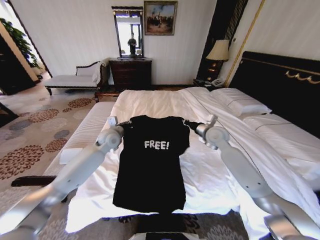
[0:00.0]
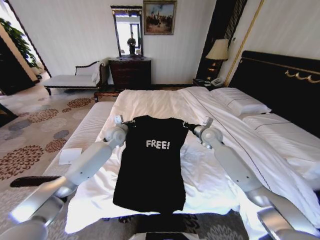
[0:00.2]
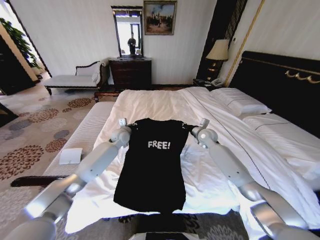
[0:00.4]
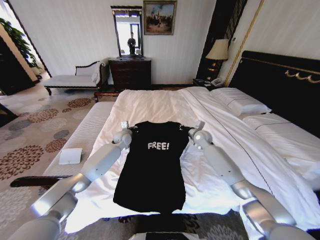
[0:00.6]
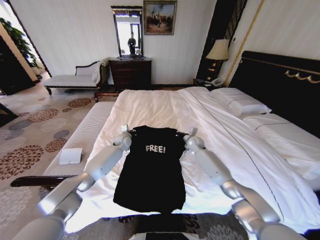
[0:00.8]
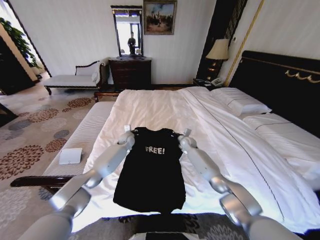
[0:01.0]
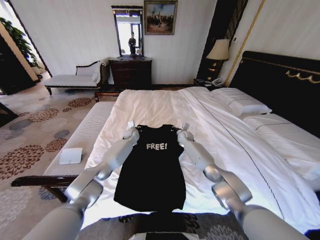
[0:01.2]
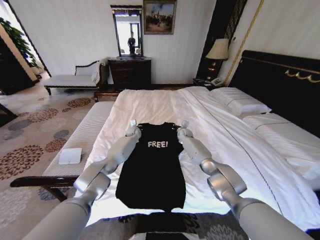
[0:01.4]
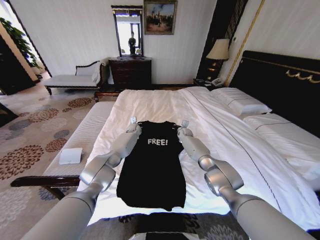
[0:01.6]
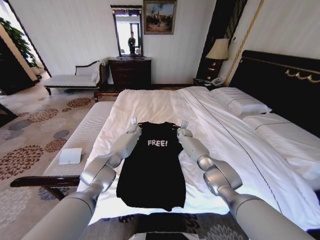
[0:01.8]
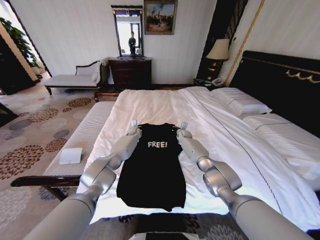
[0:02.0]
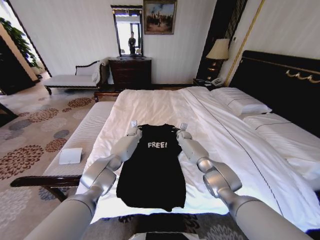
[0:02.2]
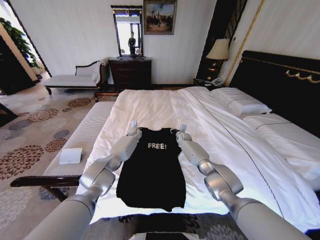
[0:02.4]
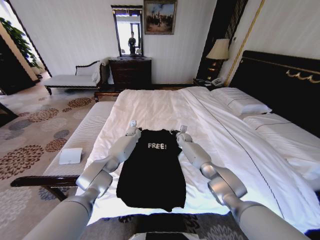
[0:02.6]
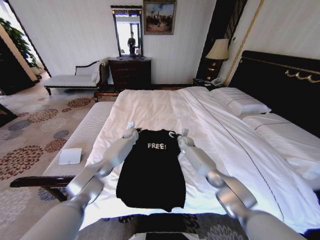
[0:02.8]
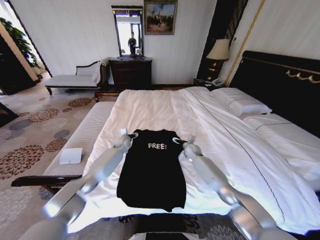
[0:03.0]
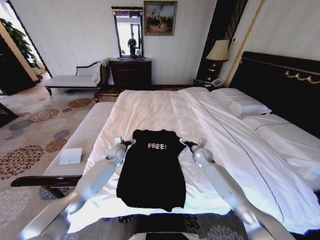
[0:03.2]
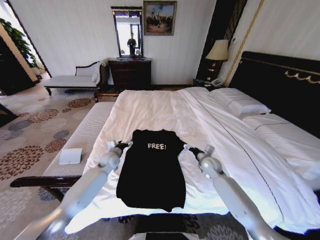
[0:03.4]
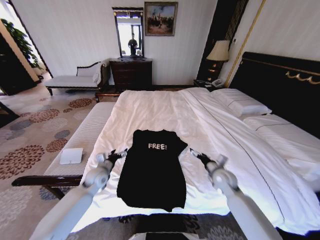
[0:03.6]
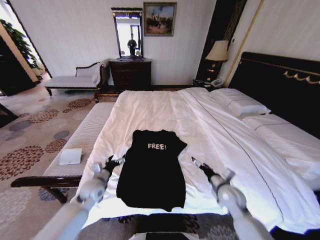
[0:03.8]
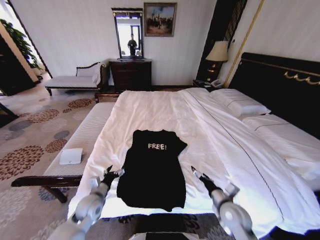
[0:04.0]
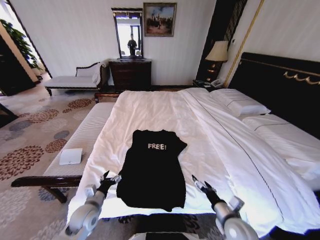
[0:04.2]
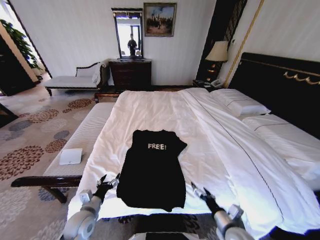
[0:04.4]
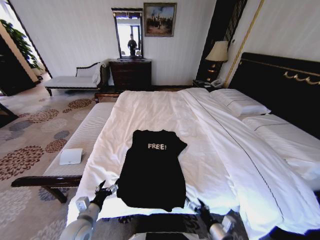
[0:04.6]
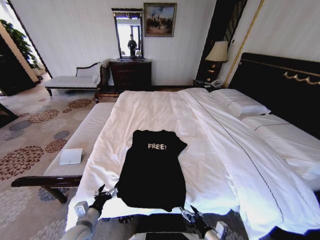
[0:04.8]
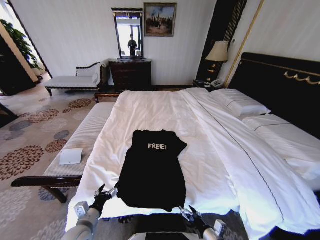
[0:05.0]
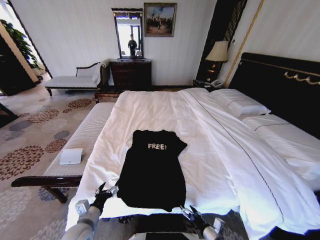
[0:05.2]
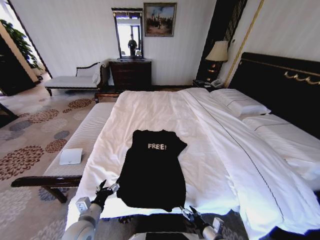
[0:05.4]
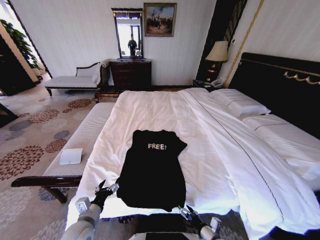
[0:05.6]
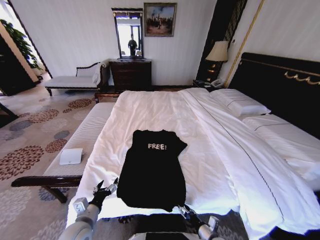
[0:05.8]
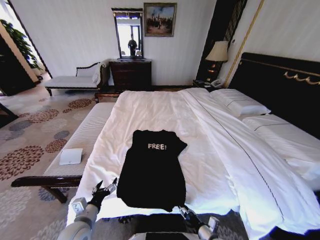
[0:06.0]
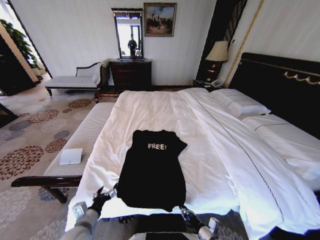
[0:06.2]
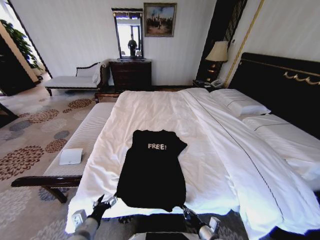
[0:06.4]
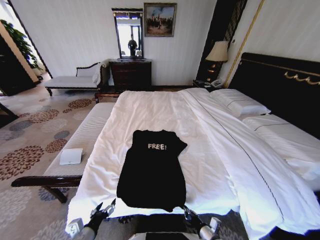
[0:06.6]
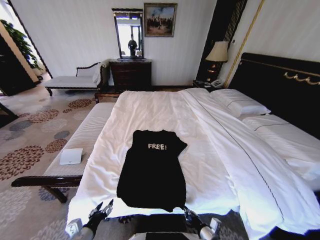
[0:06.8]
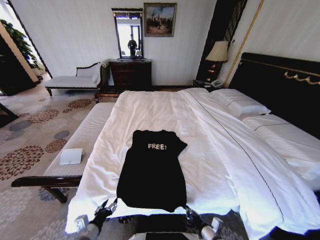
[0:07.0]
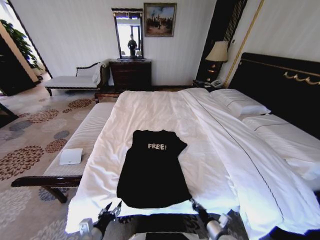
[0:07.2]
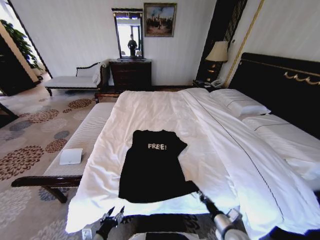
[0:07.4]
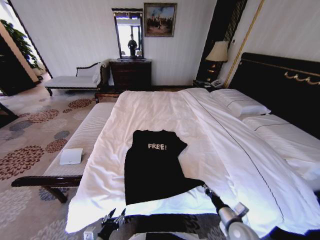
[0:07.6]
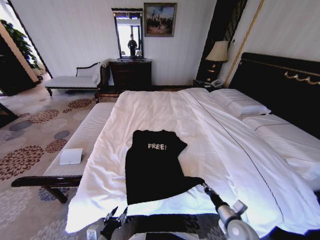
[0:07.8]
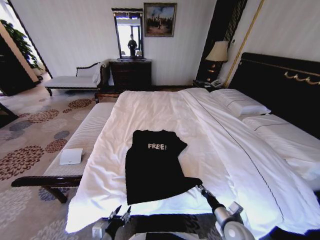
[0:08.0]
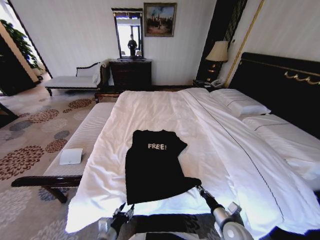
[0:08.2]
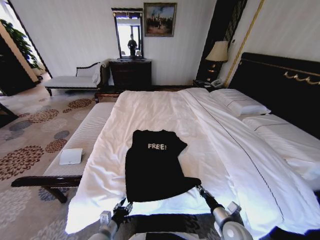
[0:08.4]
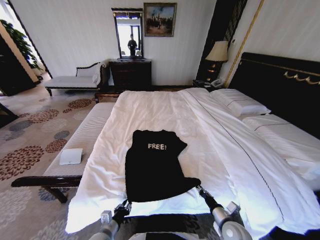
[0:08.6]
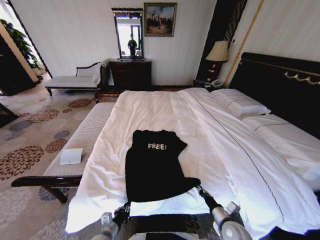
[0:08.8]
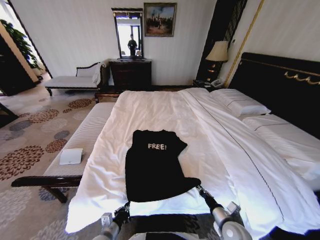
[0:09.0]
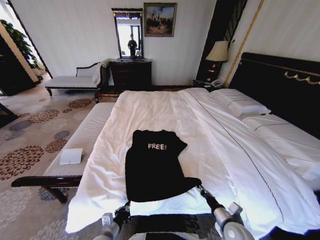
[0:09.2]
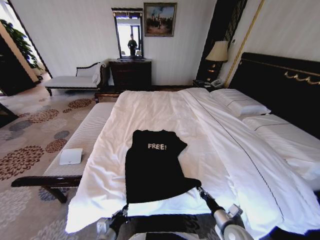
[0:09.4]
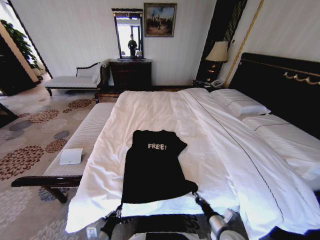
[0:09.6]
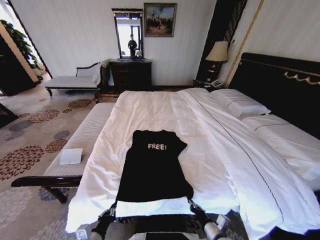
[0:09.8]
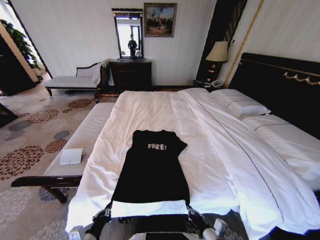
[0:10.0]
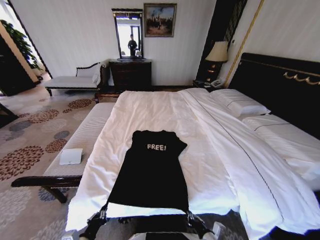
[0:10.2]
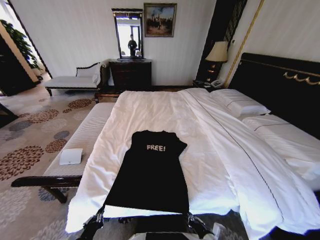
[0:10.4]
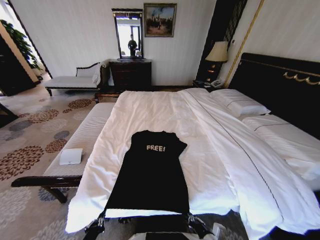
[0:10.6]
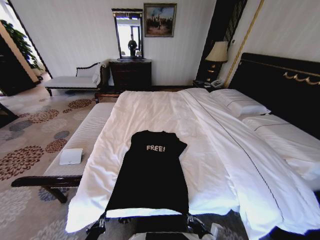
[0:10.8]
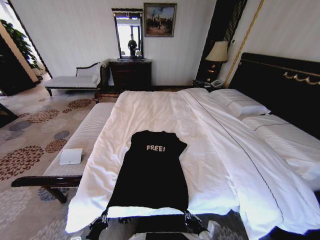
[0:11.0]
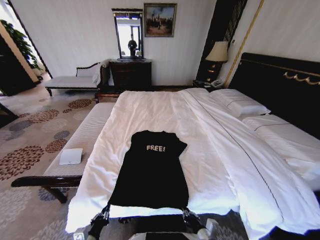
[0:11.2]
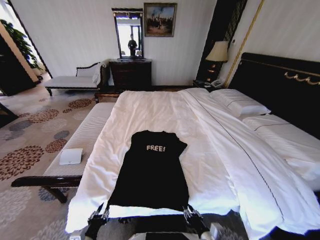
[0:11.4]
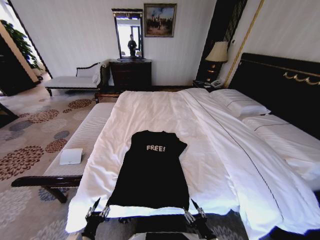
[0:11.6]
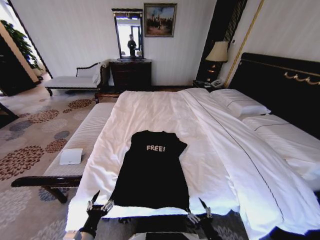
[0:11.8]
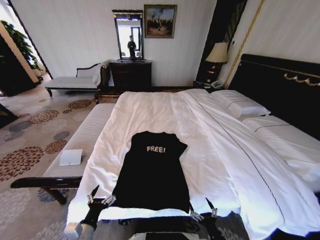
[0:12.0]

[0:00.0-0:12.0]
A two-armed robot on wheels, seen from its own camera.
Task of the whole recording: Fold the clothes on the bed.
0.0 to 1.6 s: The left gripper heads forward, downward and to the right, covering some 25 cm. The right gripper is displaced forward and downward by roughly 25 cm.
1.6 to 3.0 s: The left gripper heads backward and to the left, covering roughly 10 cm, and opens up; the right gripper goes some 10 cm backward, and opens its fingers.
3.0 to 4.4 s: The grippers both shift backward by approximately 40 cm.
4.4 to 6.0 s: The right gripper goes roughly 10 cm downward, and closes up.
6.0 to 7.6 s: The left gripper travels backward and downward by some 10 cm. The right gripper moves upward and to the right, some 10 cm, and closes its fingers.
7.6 to 9.0 s: The left gripper goes about 5 cm forward, and closes up.
9.0 to 10.4 s: The left gripper is displaced upward, backward and to the left by about 15 cm, while the right gripper heads backward and to the left, covering some 10 cm.
10.4 to 12.0 s: The right gripper shifts by roughly 5 cm, and opens its fingers, while the left gripper opens up.

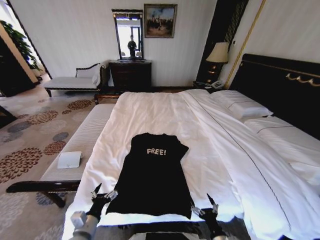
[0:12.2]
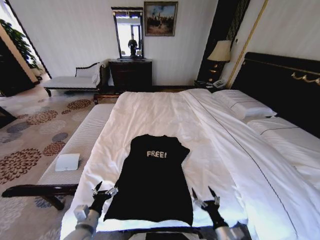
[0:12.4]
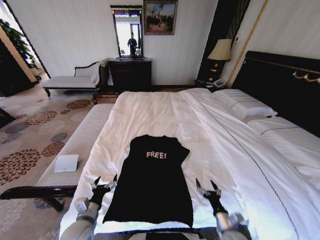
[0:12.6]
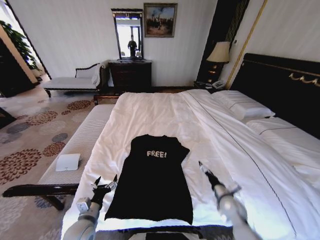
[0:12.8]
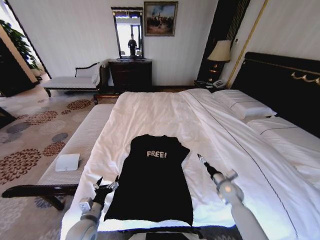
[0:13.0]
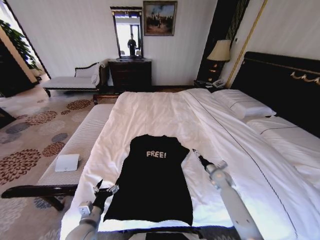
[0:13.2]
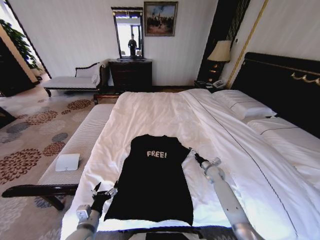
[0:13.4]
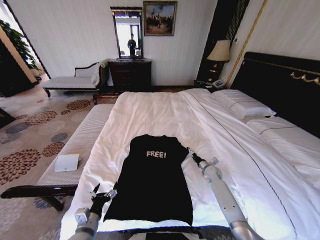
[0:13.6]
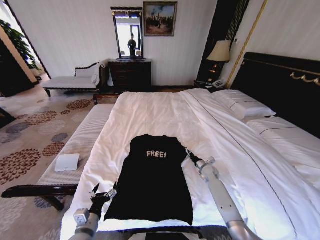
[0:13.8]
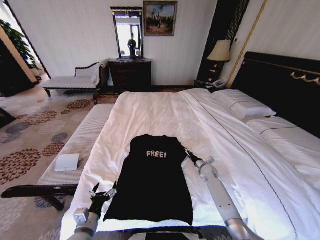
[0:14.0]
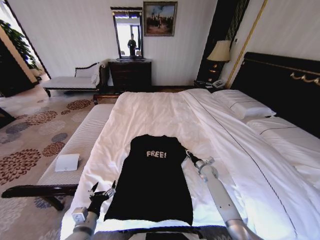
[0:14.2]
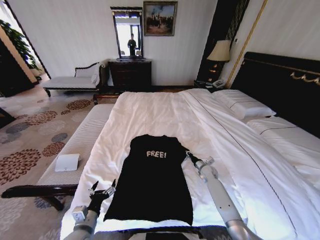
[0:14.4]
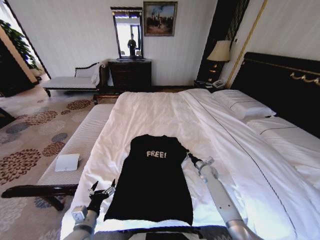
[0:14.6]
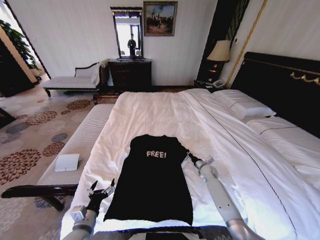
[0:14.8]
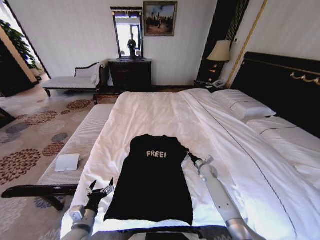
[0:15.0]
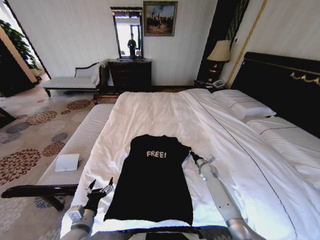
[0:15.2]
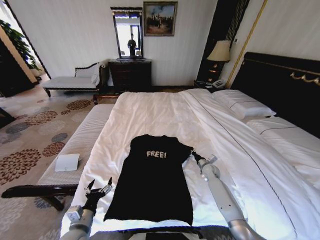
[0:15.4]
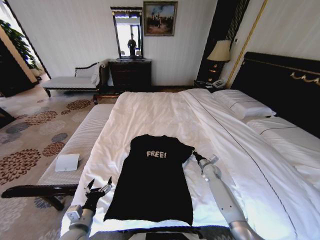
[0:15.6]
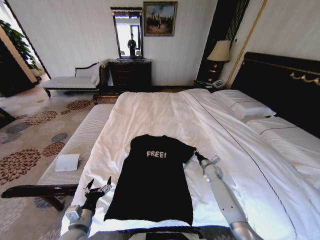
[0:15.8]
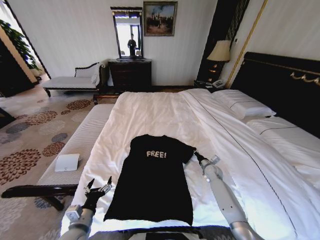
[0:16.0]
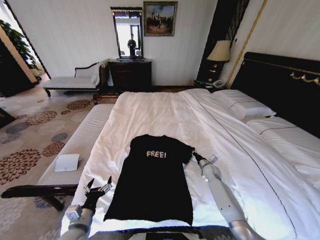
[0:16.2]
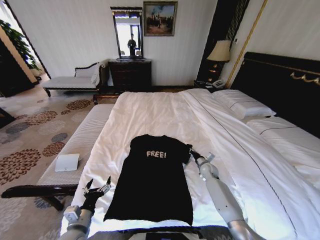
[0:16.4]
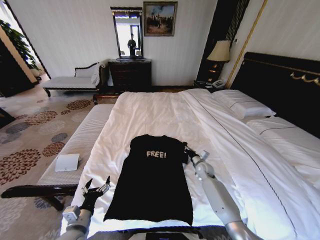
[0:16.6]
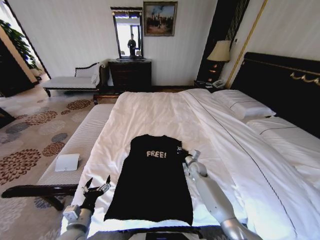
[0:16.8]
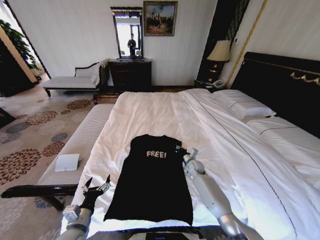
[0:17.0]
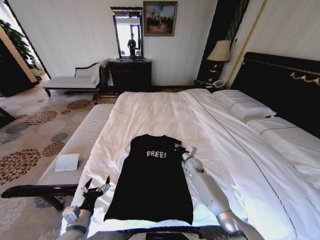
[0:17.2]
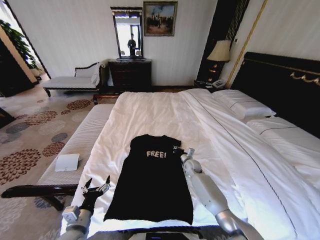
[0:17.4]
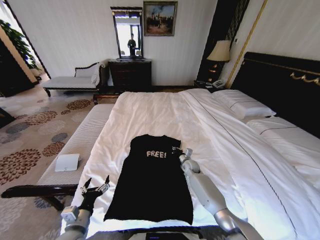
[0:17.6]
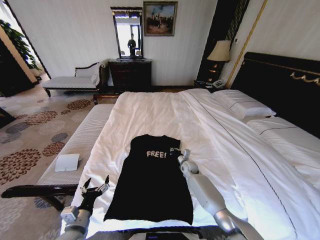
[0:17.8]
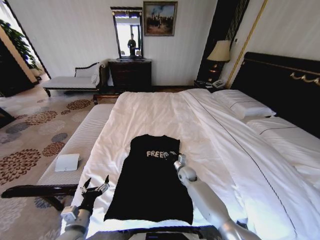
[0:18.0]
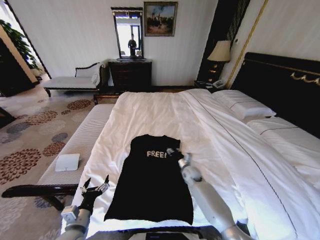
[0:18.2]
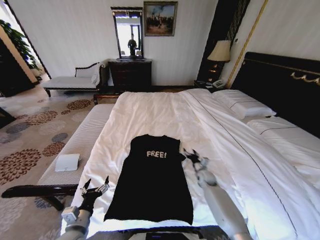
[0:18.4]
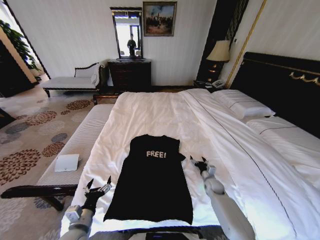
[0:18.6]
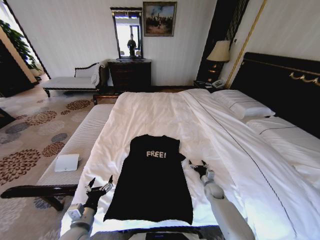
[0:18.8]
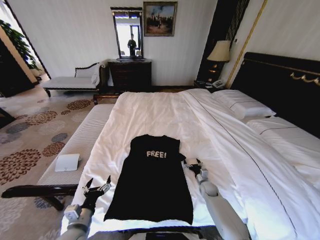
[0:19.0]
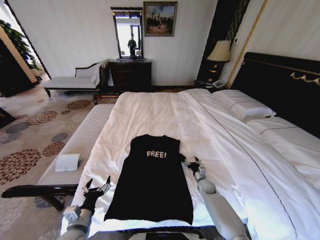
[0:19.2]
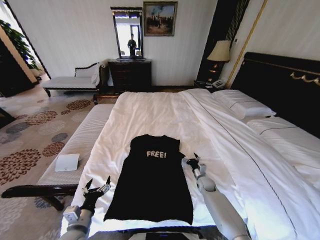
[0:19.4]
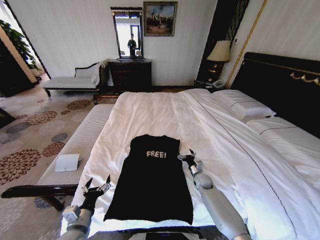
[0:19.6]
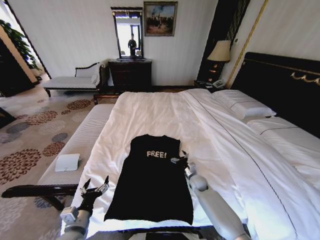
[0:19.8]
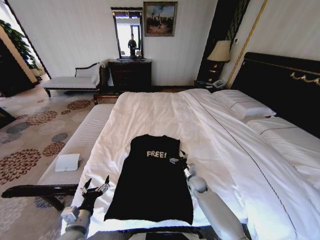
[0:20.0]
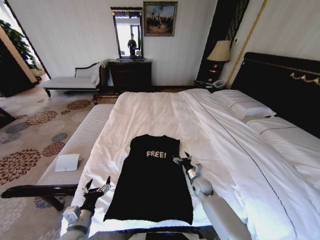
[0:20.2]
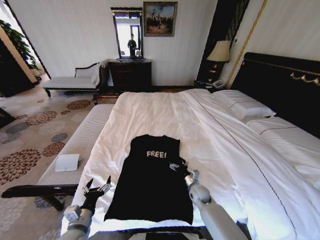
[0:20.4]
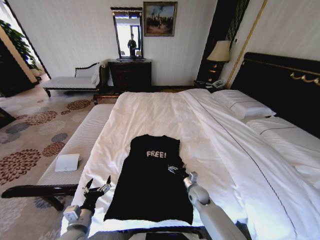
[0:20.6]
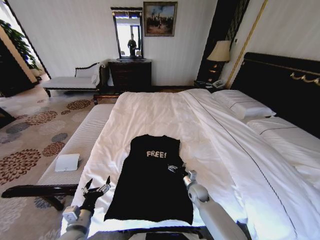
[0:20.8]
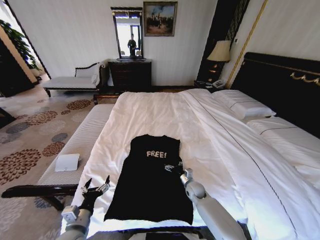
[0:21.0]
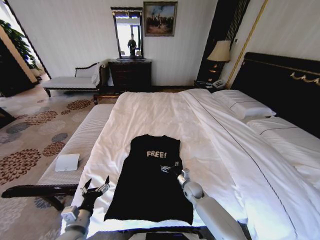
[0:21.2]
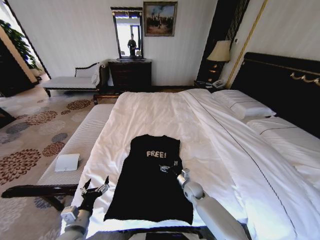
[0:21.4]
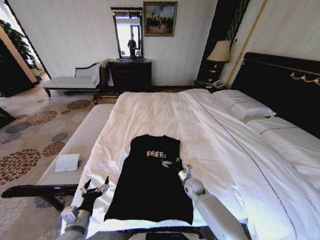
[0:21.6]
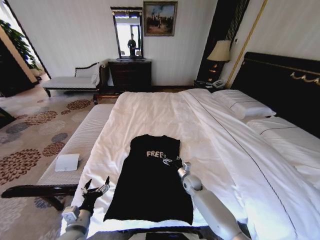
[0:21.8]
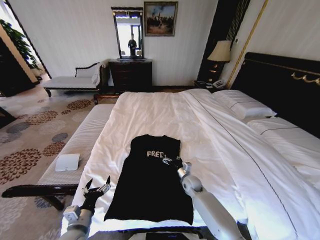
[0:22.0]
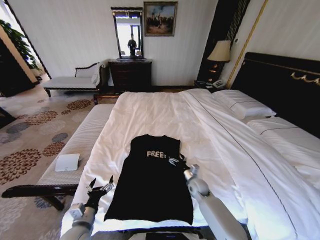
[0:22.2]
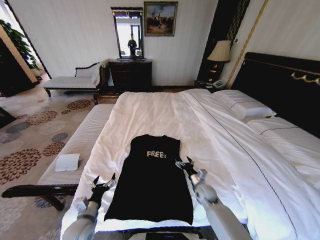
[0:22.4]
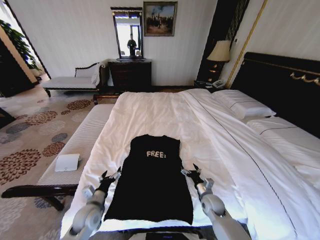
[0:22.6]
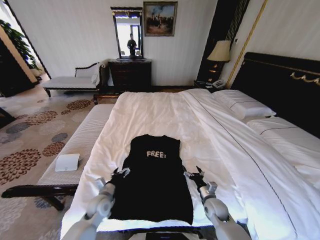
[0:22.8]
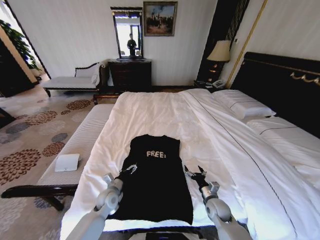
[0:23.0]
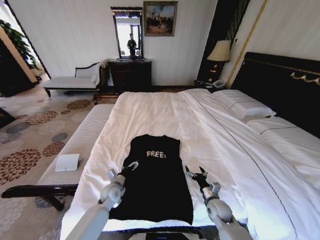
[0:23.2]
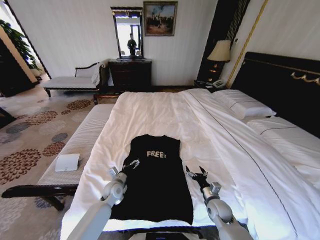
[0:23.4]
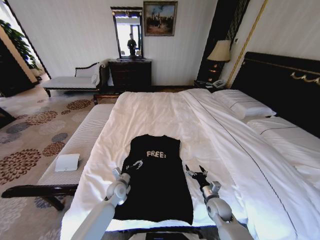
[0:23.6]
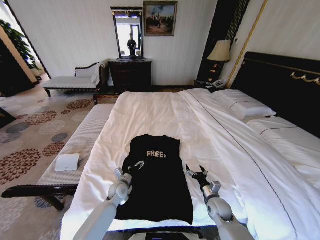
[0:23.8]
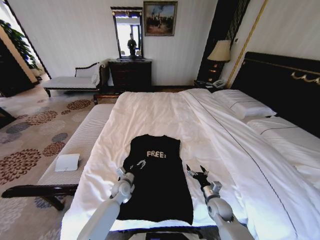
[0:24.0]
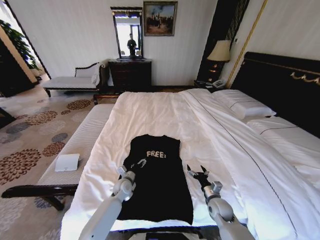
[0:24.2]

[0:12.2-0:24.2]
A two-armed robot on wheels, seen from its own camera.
Task of the whole recording: Fold the clothes on the bed.
12.2 to 13.8 s: The right gripper is displaced forward by some 40 cm.
13.8 to 15.2 s: The right gripper closes its fingers.
15.2 to 16.6 s: The grippers stay close to where they were, moving slightly.
16.6 to 18.2 s: The right gripper shifts roughly 10 cm to the left, and opens up.
18.2 to 19.8 s: The right gripper shifts some 5 cm downward, moves about 15 cm to the right and comes back, and opens its fingers.
19.8 to 21.2 s: The right gripper moves some 5 cm.
21.2 to 22.6 s: The left gripper shifts roughly 10 cm forward. The right gripper heads backward and to the right, covering approximately 10 cm.
22.6 to 24.2 s: The left gripper moves forward, to the right and downward, approximately 20 cm.
